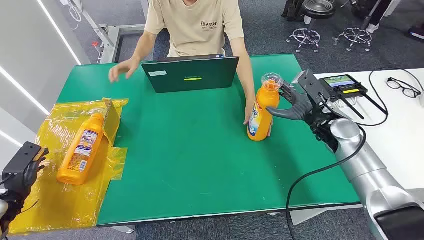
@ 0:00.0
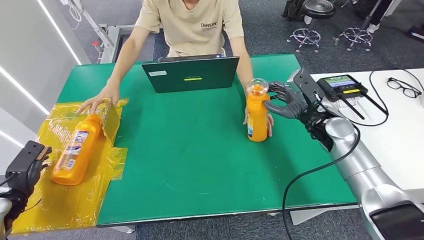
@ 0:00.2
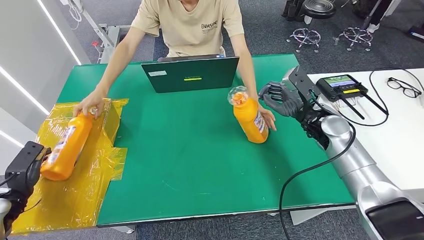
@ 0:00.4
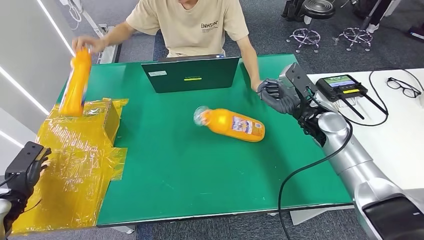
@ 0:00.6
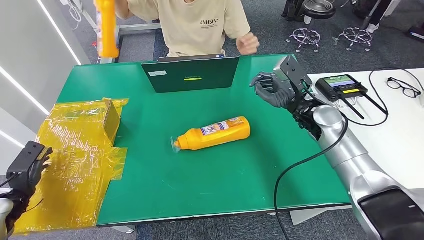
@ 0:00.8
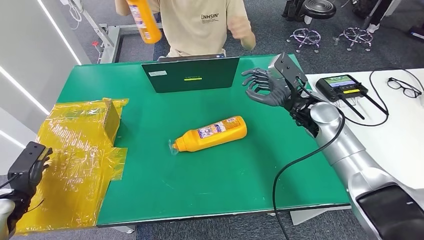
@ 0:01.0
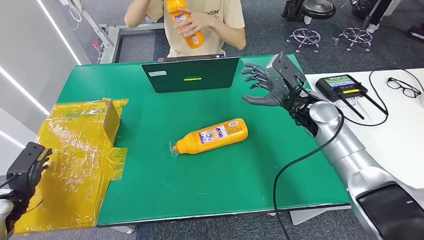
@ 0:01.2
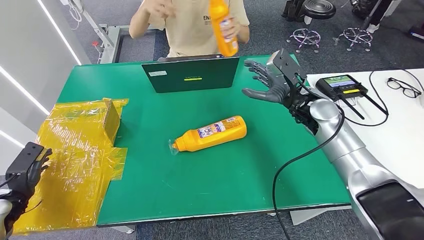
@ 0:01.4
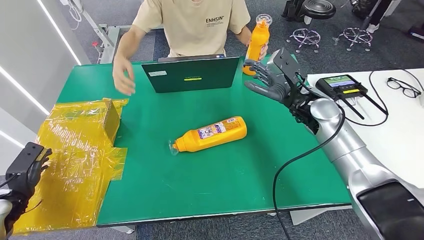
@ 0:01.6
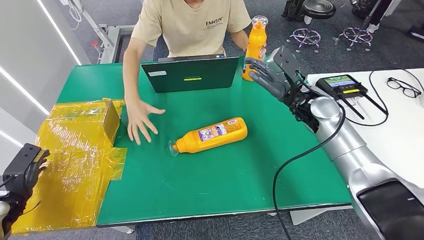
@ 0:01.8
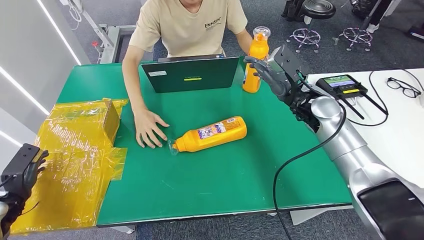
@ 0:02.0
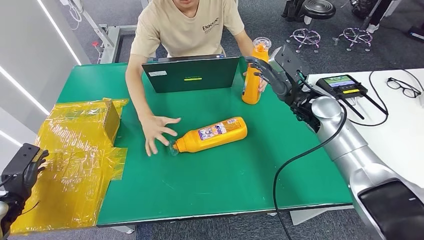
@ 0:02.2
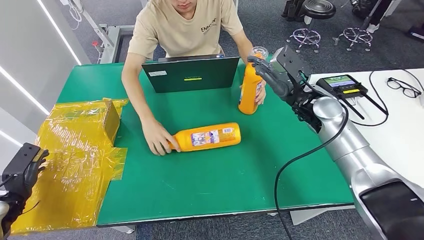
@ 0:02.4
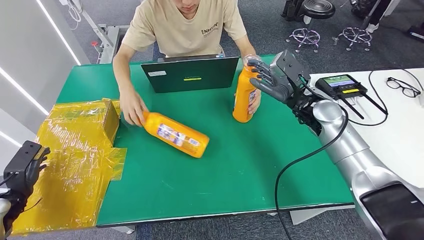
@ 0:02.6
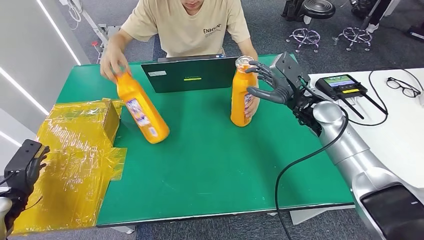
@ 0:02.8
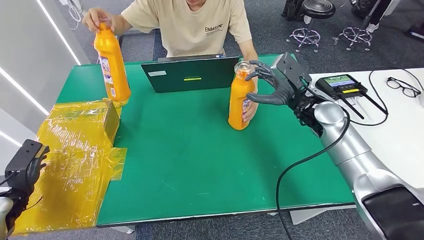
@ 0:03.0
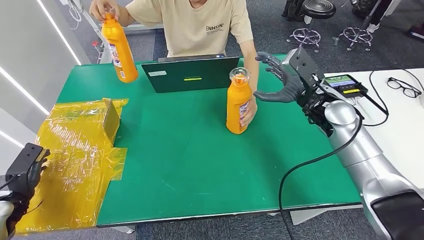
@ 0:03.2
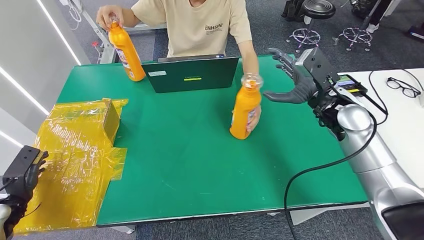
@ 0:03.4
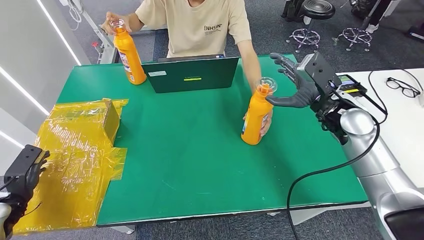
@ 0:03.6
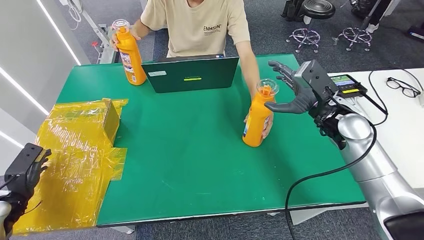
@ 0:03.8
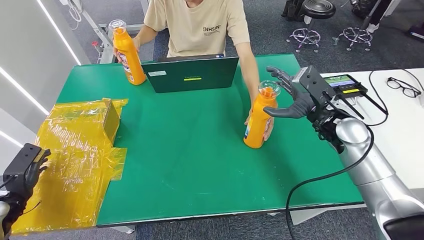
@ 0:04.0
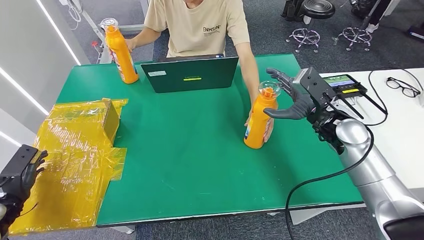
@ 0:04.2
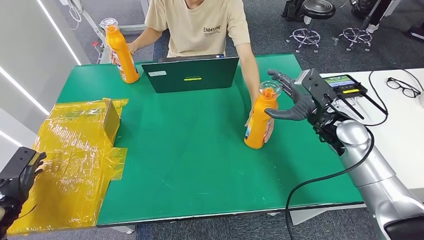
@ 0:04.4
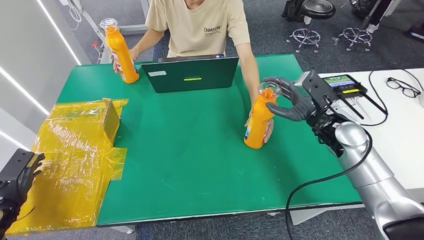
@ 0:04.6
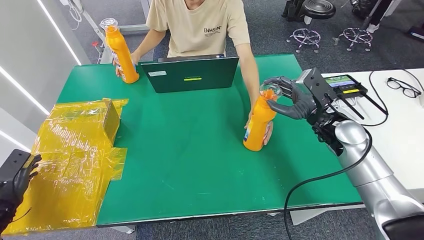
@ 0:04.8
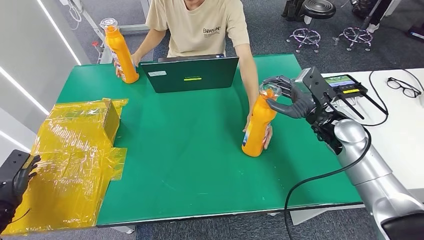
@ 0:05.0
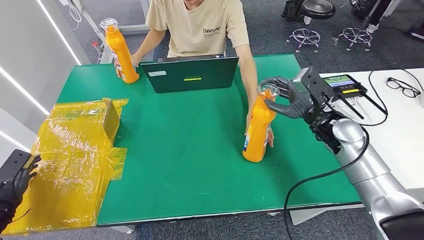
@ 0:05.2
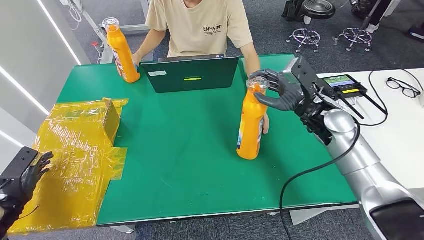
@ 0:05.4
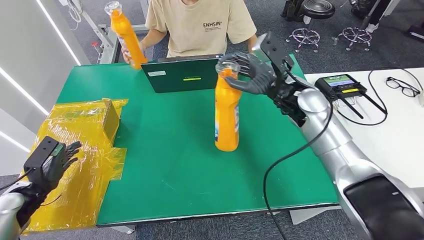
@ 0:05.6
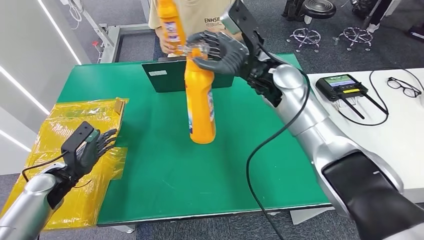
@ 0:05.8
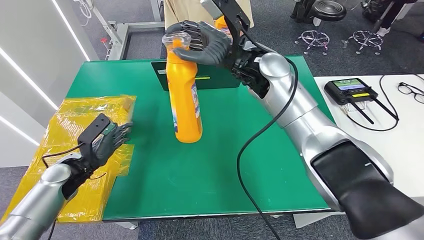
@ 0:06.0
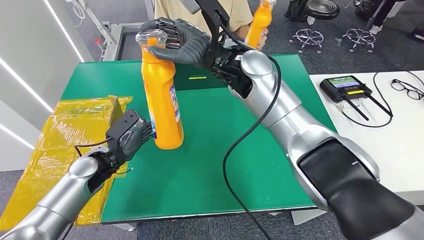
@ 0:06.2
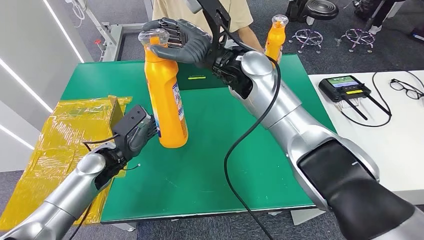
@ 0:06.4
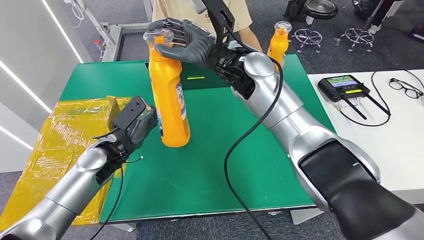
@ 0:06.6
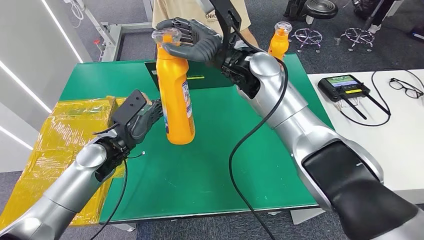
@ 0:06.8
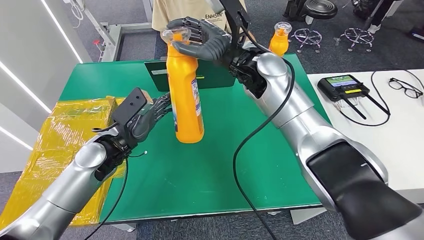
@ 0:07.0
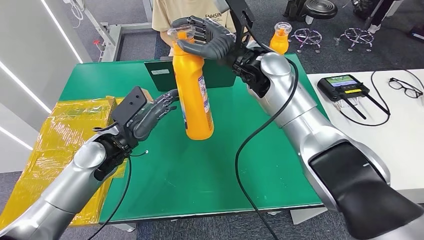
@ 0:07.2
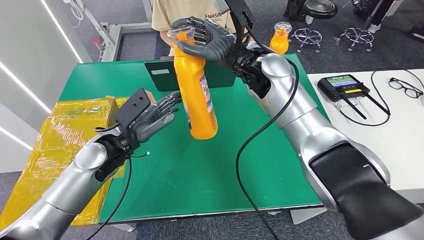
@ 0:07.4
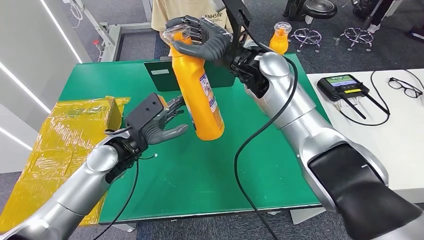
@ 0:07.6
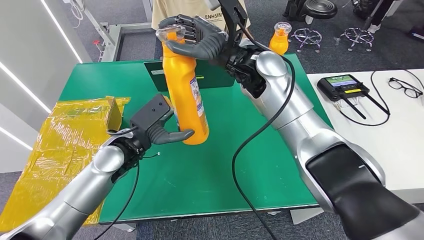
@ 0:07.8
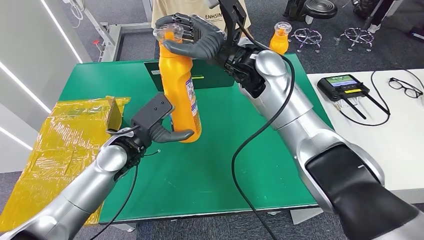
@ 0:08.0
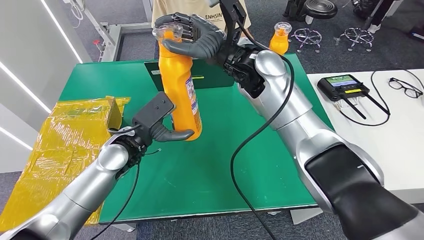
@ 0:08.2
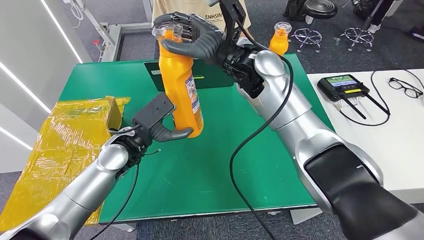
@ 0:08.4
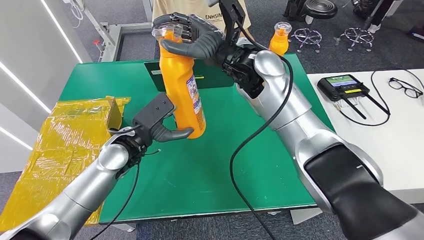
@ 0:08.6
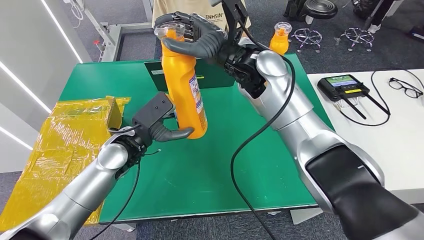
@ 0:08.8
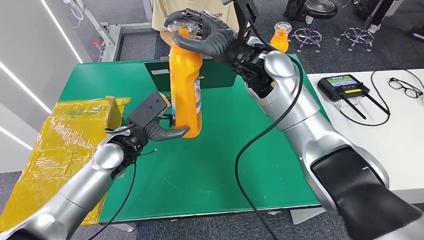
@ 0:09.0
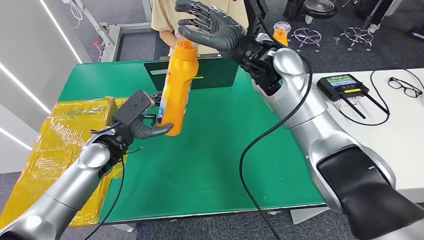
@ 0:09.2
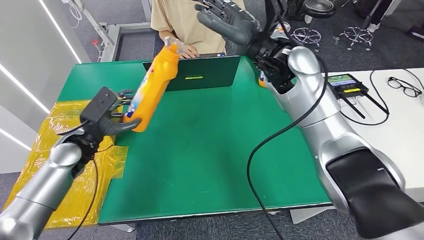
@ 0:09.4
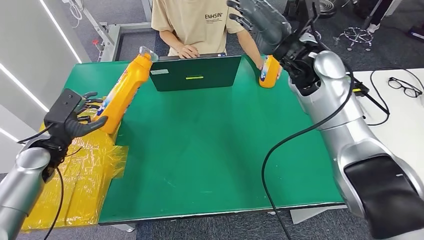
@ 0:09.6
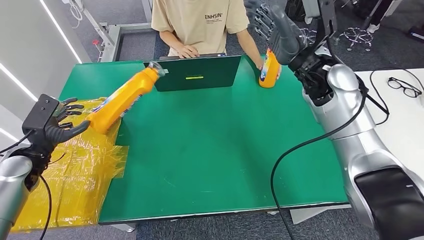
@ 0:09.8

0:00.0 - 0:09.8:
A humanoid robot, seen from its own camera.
Step, 0:00.0 - 0:06.6: Pick up the bottle from the table.
Step, 0:06.8 - 0:09.8: Turn the bottle to the front side.
0:01.4 - 0:02.8: Both hands stay about where they are.
0:02.8 - 0:04.2: The right hand changes place by about 5 cm.
0:07.0 - 0:08.4: The hands move only a little.
